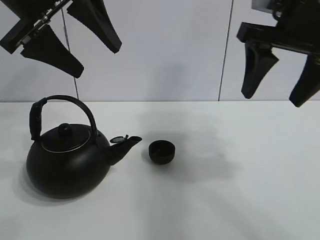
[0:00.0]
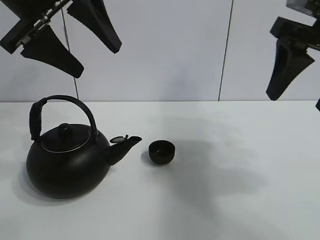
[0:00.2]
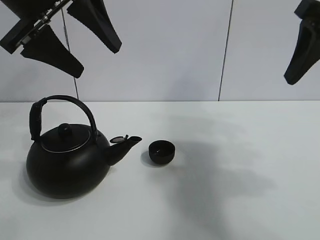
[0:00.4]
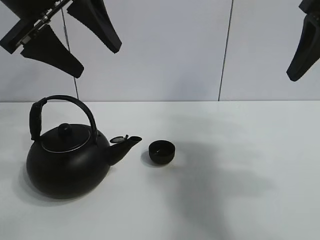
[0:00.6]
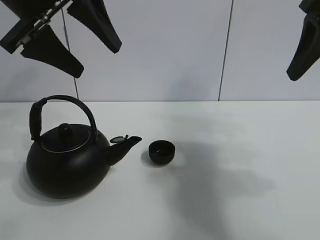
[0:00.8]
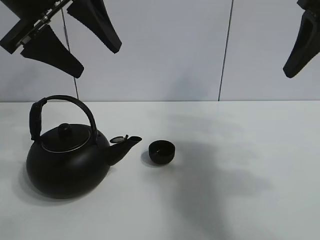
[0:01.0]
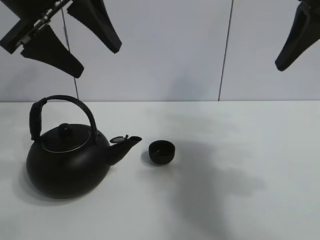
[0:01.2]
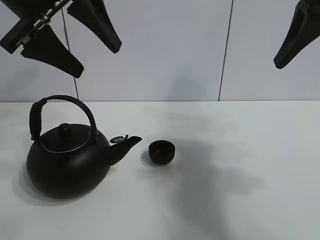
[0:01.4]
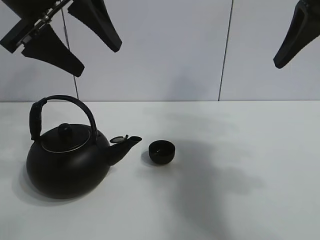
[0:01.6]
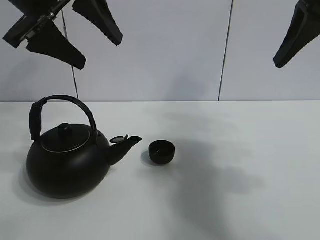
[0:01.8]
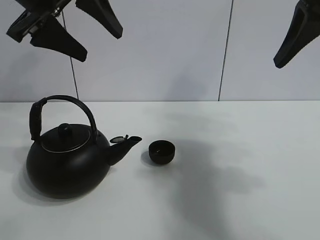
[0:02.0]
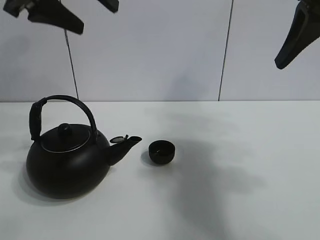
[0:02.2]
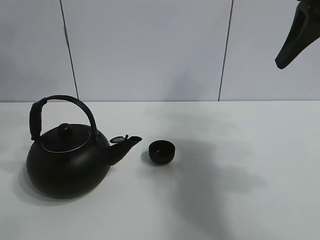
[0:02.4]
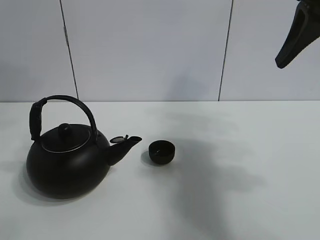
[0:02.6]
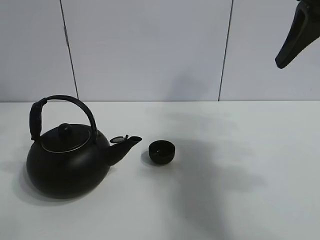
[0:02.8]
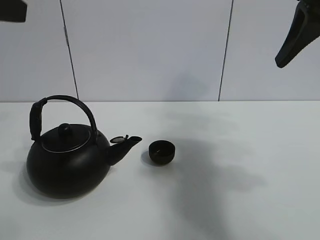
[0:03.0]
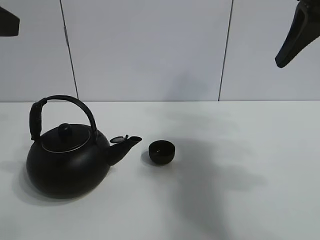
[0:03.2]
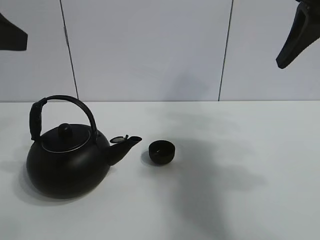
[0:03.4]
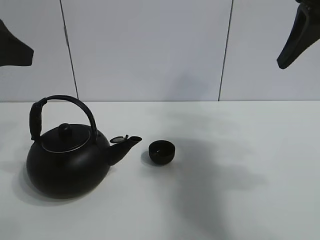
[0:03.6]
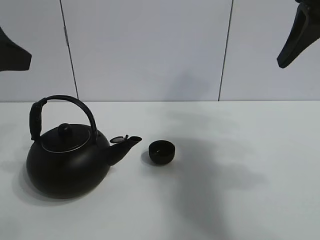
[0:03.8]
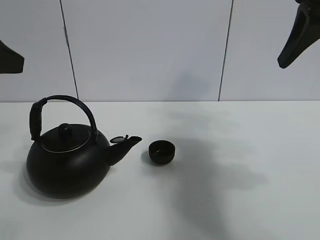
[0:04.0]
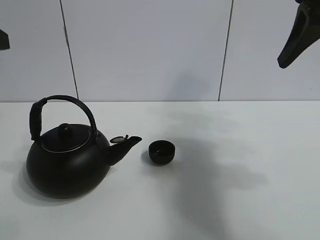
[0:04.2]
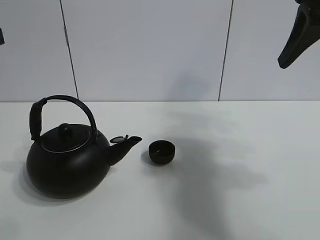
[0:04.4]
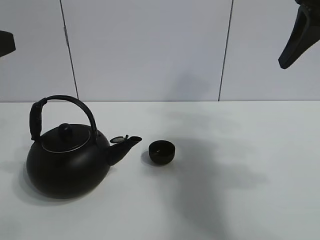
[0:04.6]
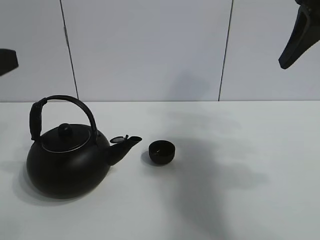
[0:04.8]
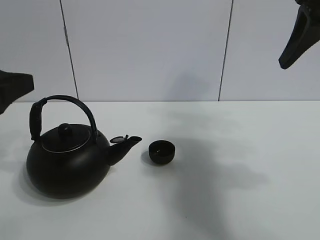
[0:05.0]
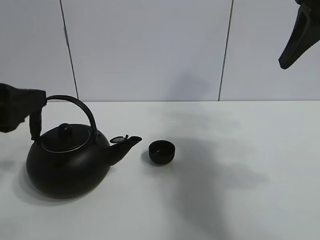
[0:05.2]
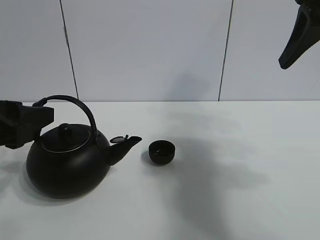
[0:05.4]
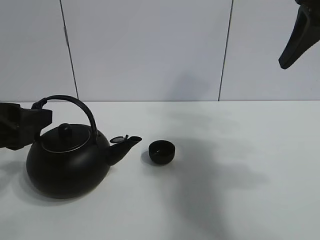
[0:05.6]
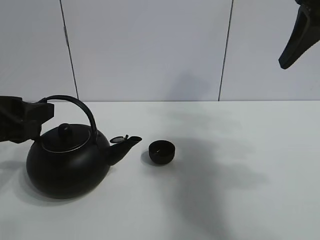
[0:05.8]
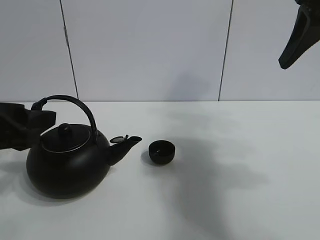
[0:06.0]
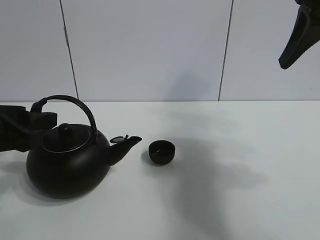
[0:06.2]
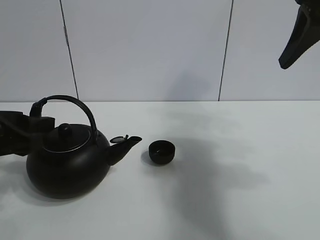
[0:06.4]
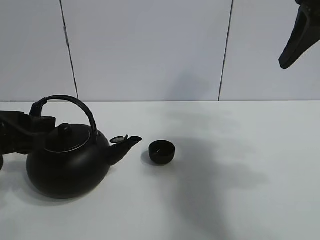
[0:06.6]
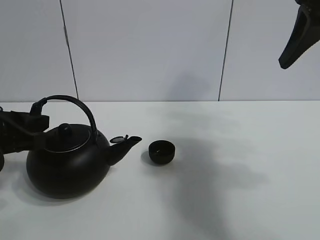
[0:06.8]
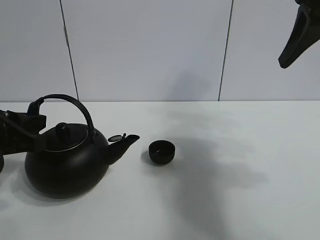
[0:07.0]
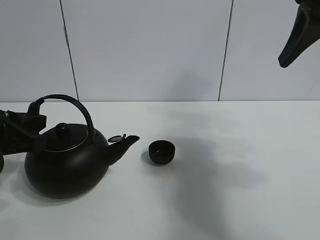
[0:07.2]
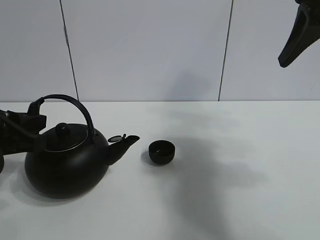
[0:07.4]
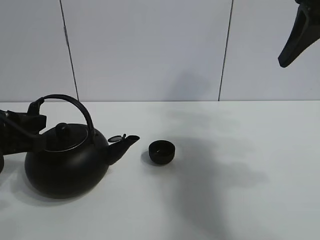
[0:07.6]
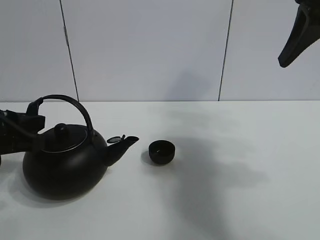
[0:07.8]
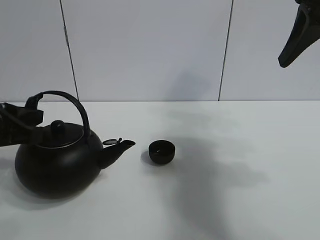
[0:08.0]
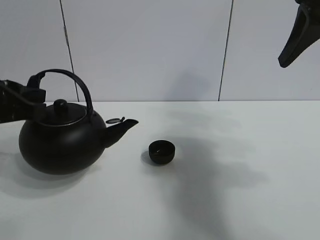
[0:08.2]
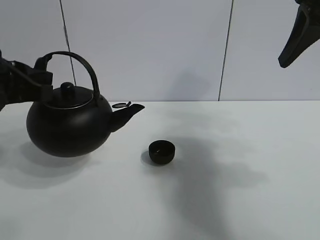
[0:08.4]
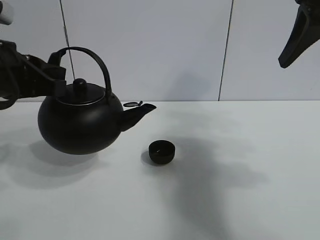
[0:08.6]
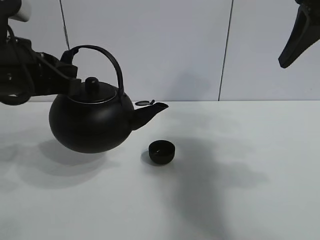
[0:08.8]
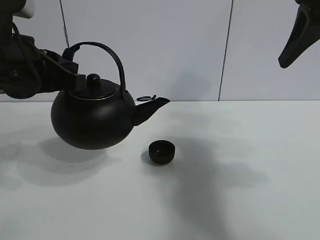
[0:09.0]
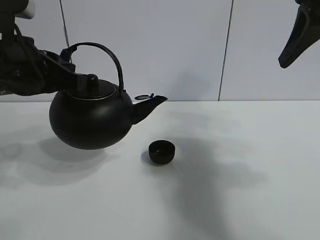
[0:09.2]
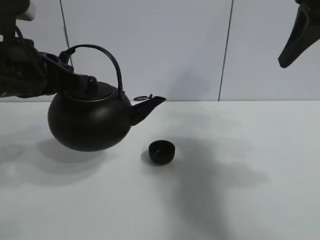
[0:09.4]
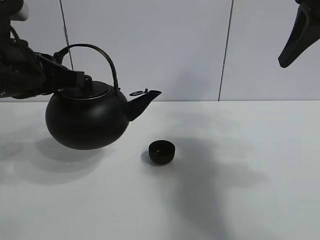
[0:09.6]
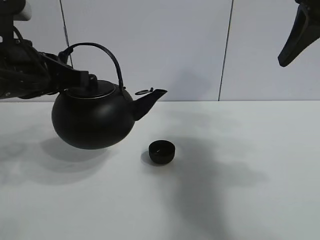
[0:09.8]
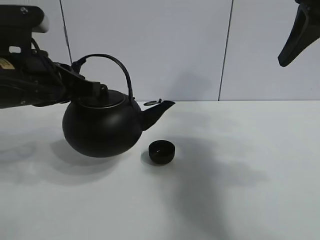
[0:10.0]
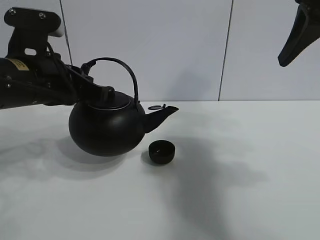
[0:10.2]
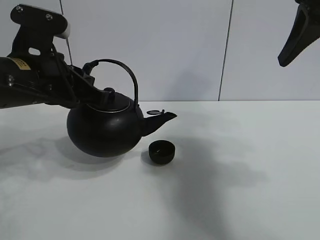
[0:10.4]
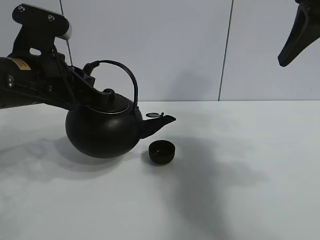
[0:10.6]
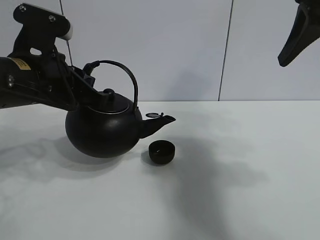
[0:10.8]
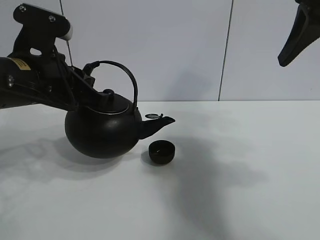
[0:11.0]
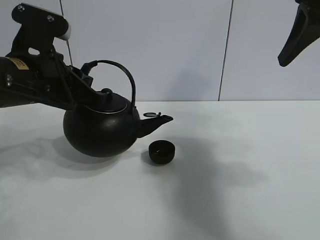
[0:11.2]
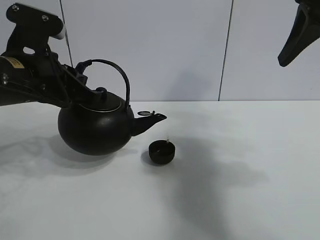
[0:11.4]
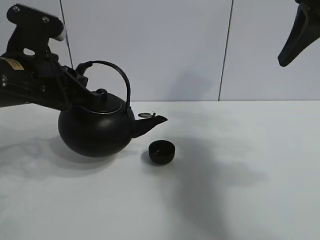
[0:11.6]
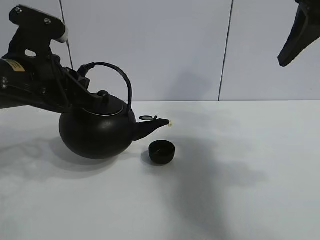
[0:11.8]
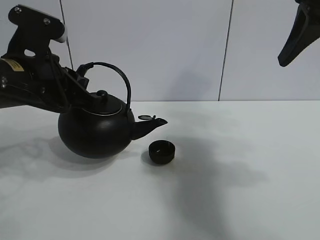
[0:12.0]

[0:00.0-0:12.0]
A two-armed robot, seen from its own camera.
Task of the whole recording: pour tea into the teacup.
Step, 0:00.0 to 0:08.0: Pick up the teapot with the left gripper.
0:00.0 to 0:01.6: The right gripper changes place by approximately 5 cm.
0:01.6 to 0:03.0: The left gripper travels backward and to the left by some 10 cm.
0:03.0 to 0:04.4: The left gripper shifts approximately 5 cm downward.
0:04.4 to 0:06.0: The left gripper moves downward, about 10 cm.
0:06.0 to 0:07.6: The left gripper closes up.
0:07.6 to 0:09.0: The left gripper shifts about 10 cm upward and to the right.
0:09.0 to 0:10.4: There are only small adjustments of the grippers.
0:10.4 to 0:12.0: Neither gripper changes place.

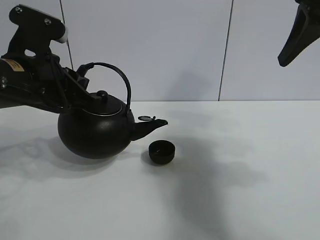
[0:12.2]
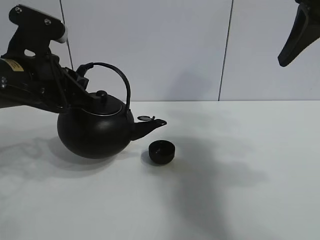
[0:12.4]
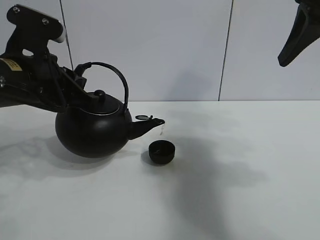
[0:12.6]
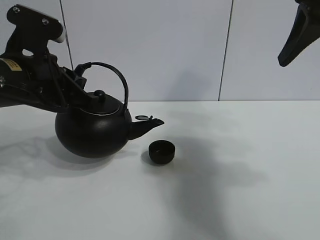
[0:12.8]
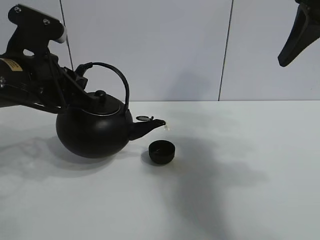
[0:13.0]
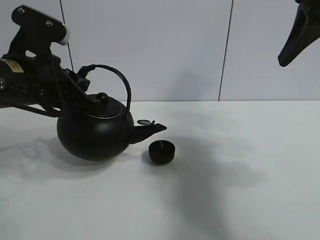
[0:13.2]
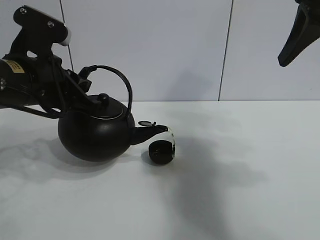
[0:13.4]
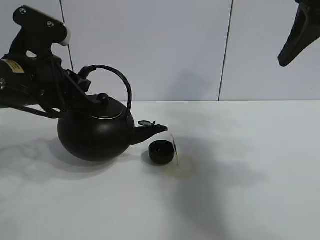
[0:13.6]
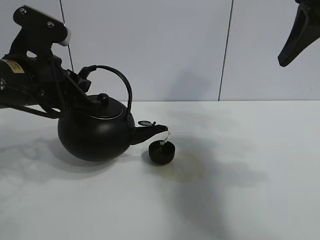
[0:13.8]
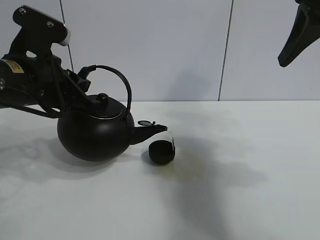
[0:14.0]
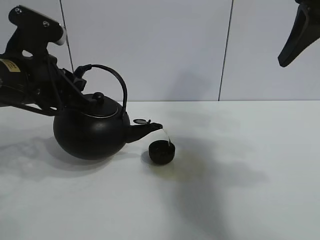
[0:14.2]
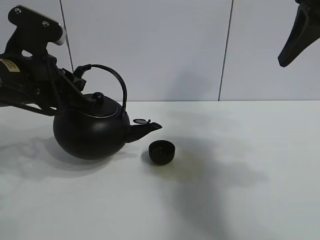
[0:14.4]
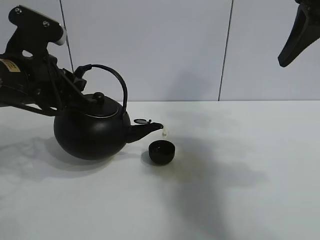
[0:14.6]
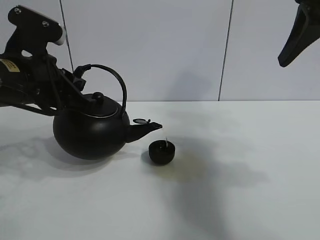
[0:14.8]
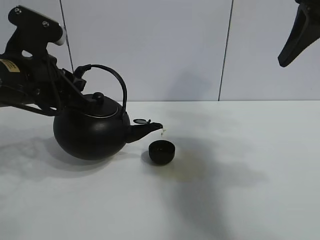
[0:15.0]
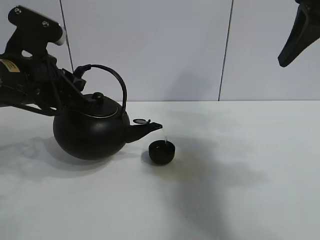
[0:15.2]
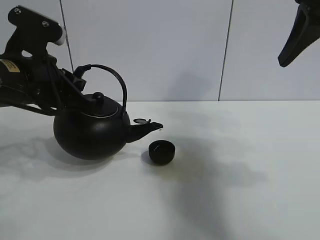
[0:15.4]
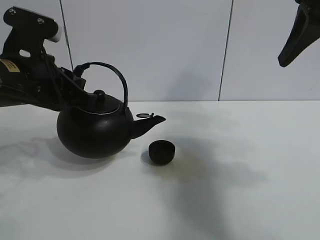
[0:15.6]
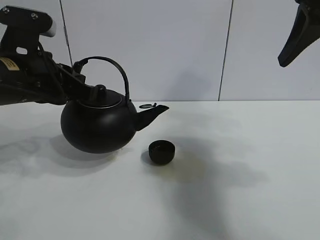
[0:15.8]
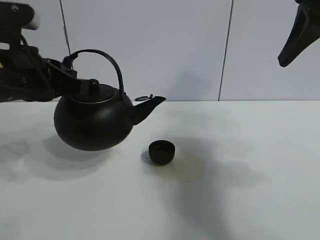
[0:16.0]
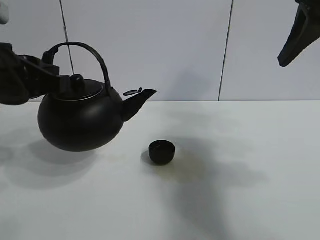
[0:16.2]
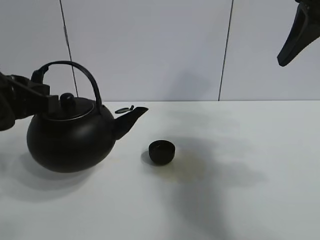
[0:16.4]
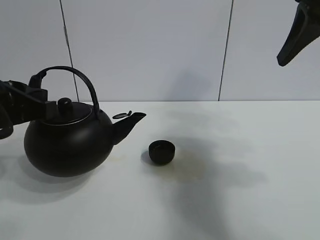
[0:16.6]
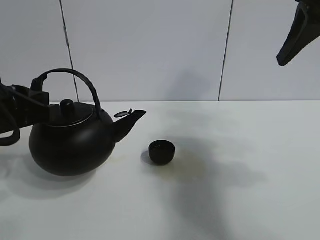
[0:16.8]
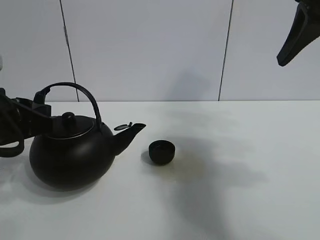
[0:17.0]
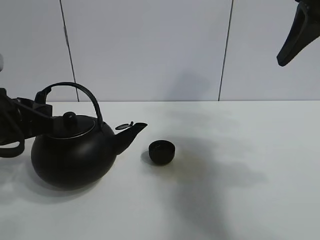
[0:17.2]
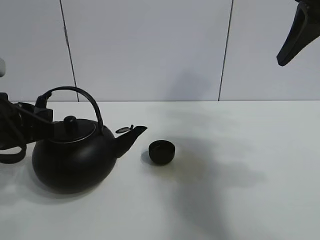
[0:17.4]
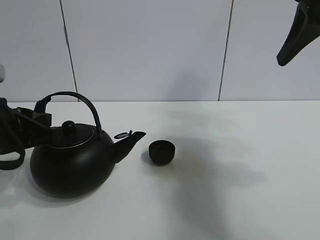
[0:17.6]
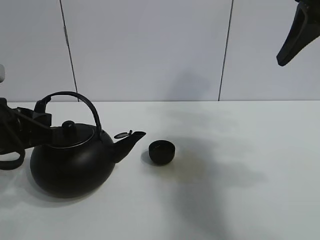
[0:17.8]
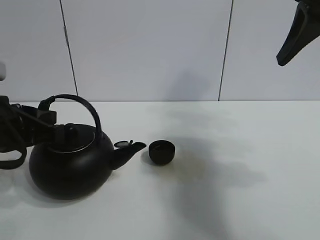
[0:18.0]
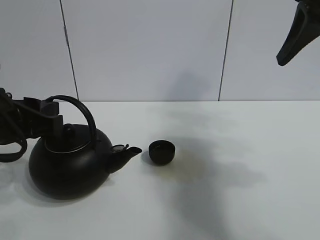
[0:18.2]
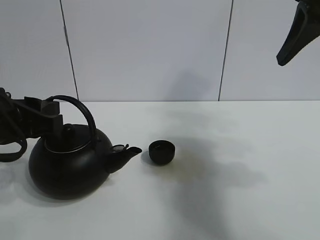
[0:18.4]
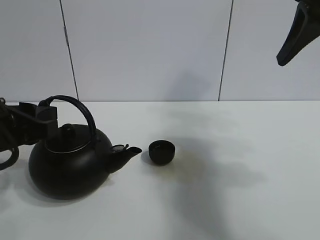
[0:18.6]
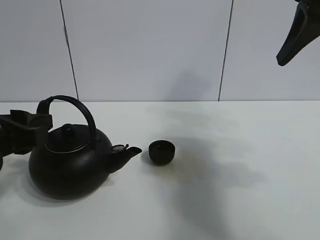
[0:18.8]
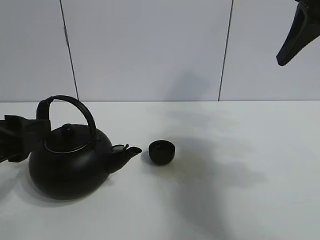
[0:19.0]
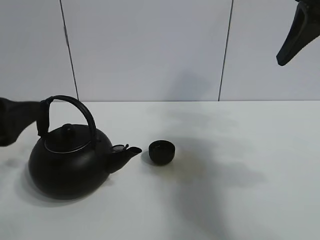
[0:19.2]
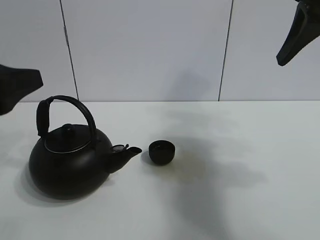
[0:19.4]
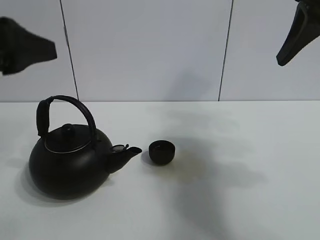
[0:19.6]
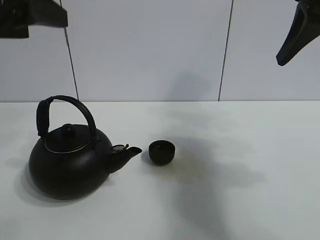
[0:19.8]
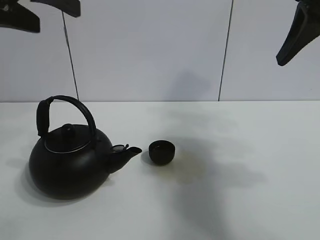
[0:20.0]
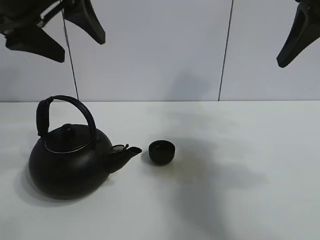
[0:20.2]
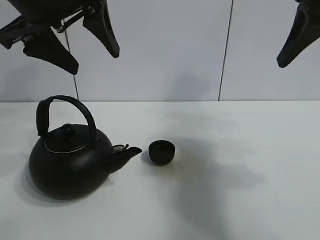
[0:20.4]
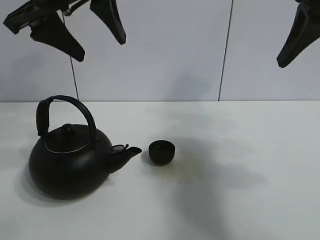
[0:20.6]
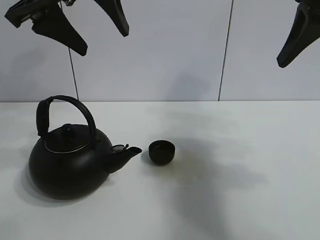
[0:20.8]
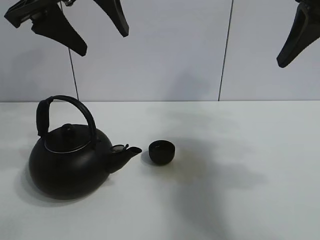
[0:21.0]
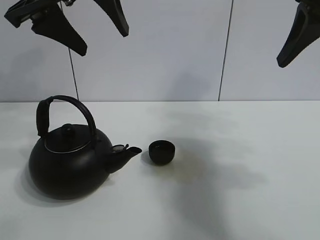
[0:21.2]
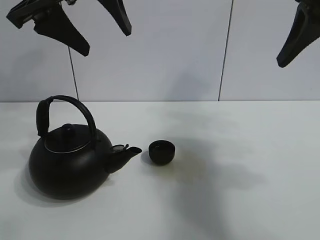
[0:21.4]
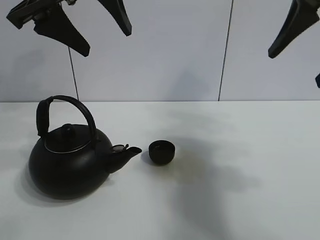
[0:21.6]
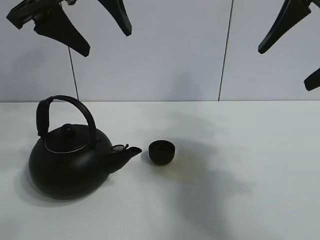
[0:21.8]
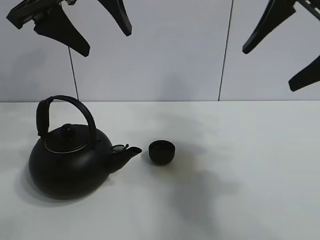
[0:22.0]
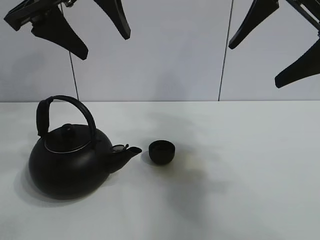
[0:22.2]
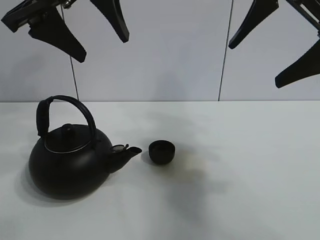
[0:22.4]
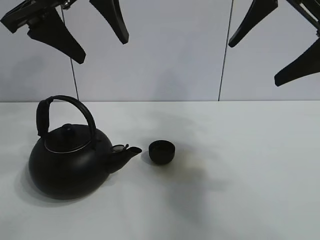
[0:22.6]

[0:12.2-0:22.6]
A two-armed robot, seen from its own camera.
Task of the whole recording: pour tea into the teacup.
Step, 0:12.2 to 0:15.6: Pour tea into the teacup with the left gripper.
0:12.2 to 0:15.2: Both grippers stay put.
0:15.2 to 0:16.6: The left gripper moves backward, some 5 cm.
0:16.6 to 0:18.2: The left gripper opens its fingers.
0:18.2 to 0:19.6: The left gripper moves upward, roughly 10 cm, and opens.
0:19.6 to 0:21.2: The left gripper goes approximately 15 cm forward, upward and to the right.
0:21.2 to 0:22.6: The grippers make only small movements.
